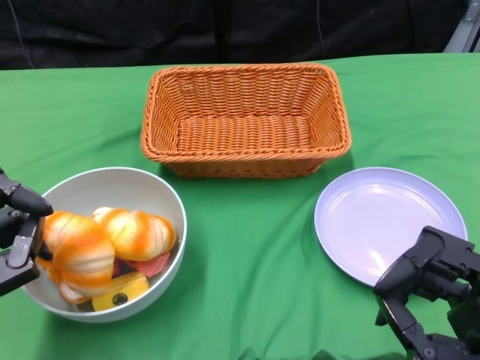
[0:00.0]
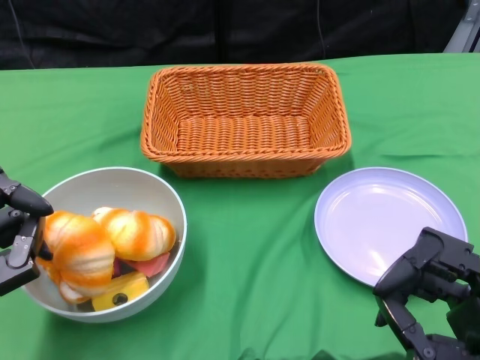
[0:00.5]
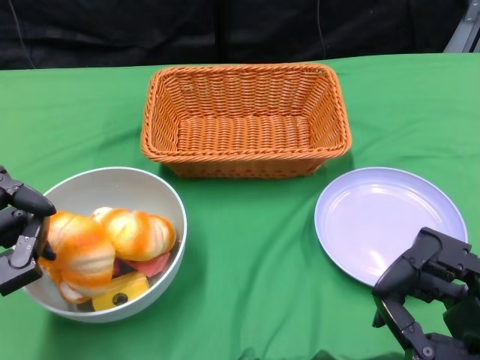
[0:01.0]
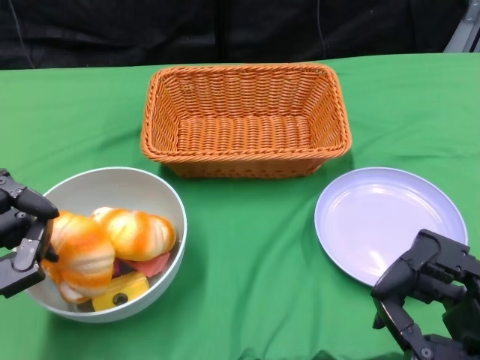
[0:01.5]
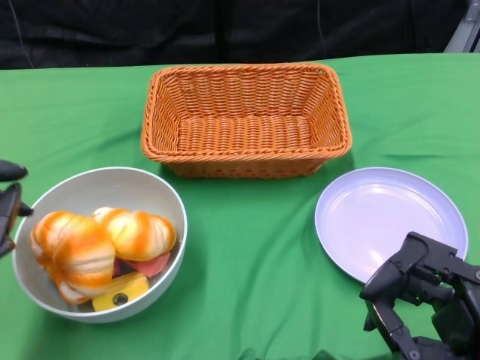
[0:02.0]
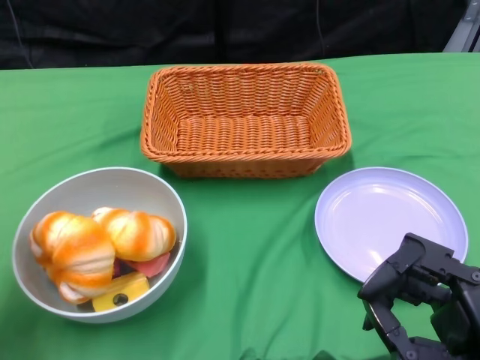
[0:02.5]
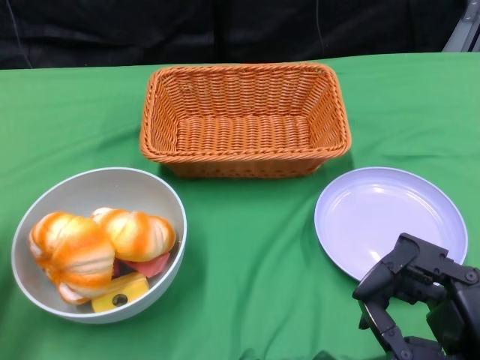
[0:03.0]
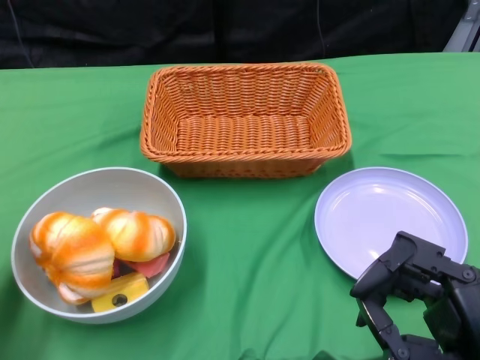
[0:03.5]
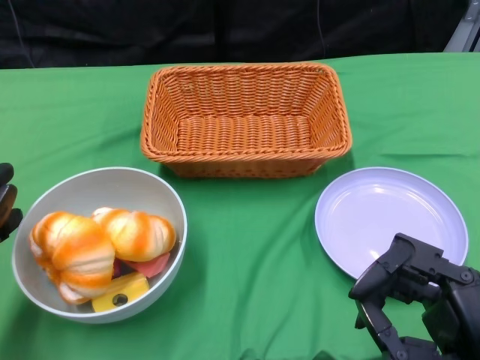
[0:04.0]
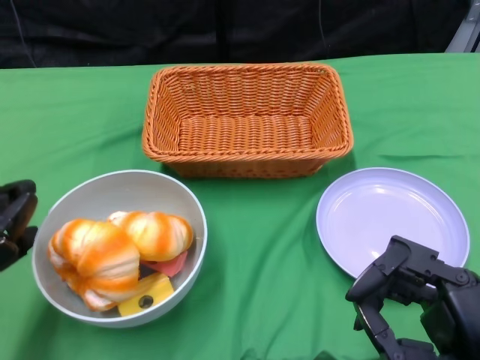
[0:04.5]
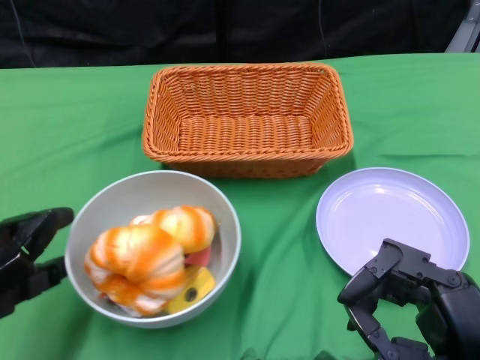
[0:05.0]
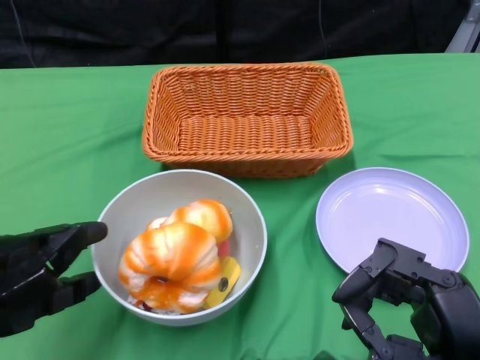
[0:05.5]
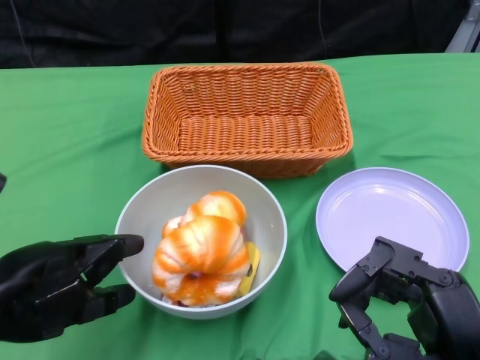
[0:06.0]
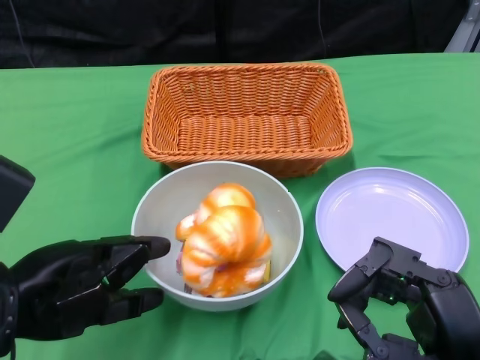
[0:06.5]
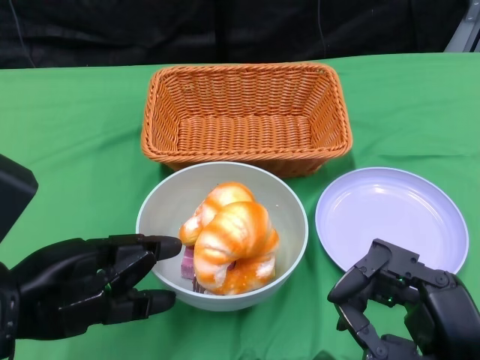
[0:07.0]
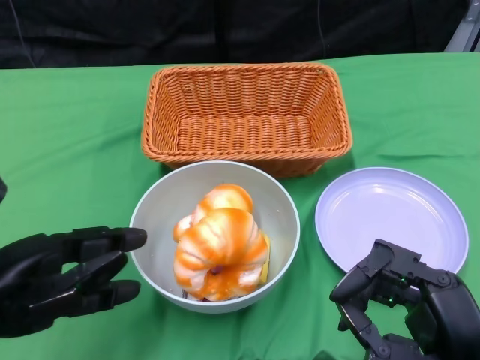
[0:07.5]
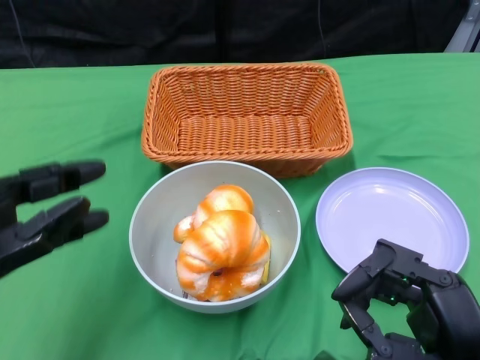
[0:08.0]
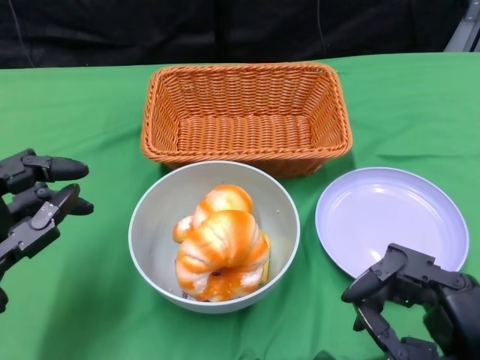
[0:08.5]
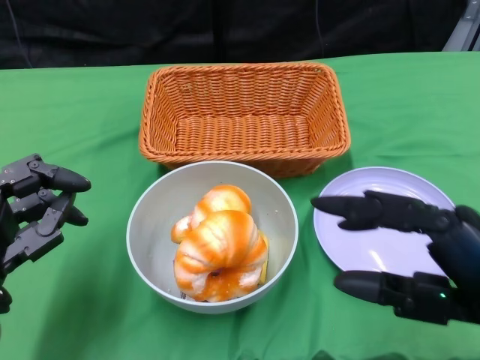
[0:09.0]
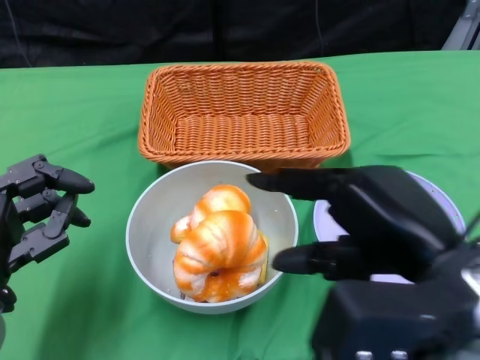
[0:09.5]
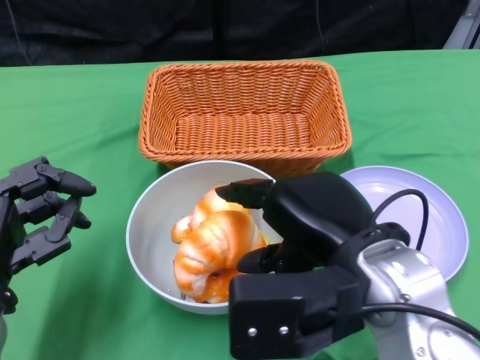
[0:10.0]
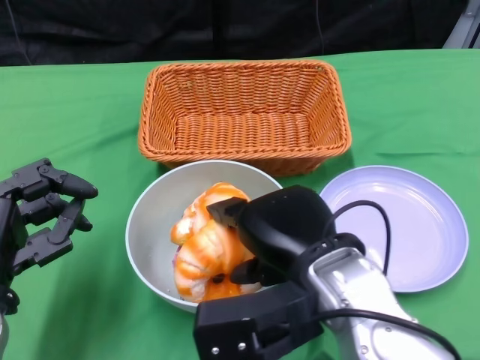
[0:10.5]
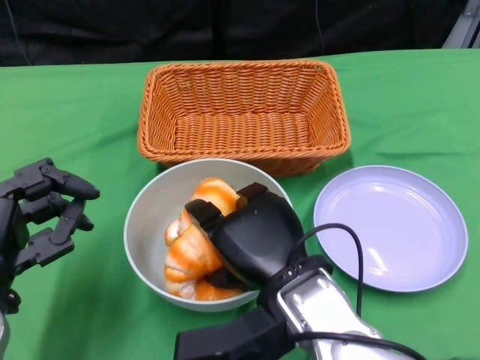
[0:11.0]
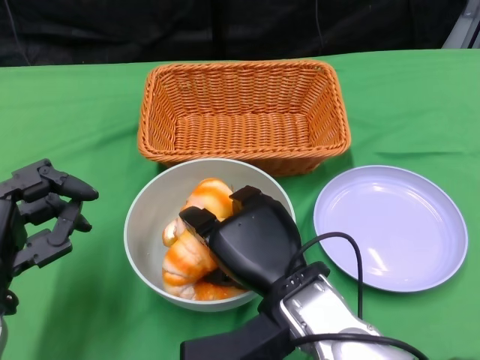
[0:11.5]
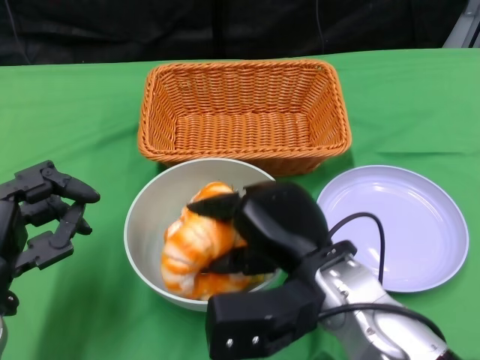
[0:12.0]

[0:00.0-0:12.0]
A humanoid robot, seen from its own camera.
Step, 0:00.0 to 0:07.5: Push the bowl to the center of the table using the left gripper.
0:02.0 to 0:04.0: The left hand ends up about 5 cm from where it was.
0:04.0 to 0:06.0: The left hand heads to the right, covering about 5 cm.
0:08.0 to 0:10.0: The right hand heads to the left, upward and forward, covering about 15 cm. The left hand goes approximately 10 cm downward.
0:10.0 to 0:12.0: The right hand shifts about 5 cm downward.

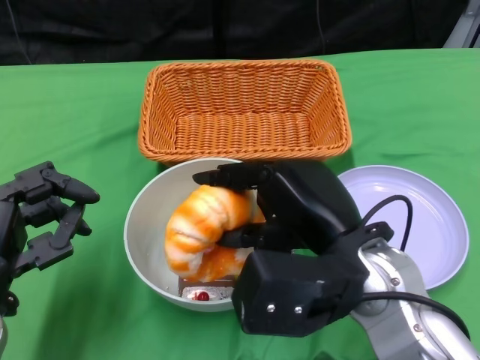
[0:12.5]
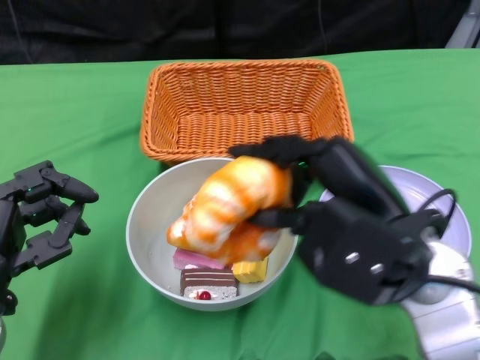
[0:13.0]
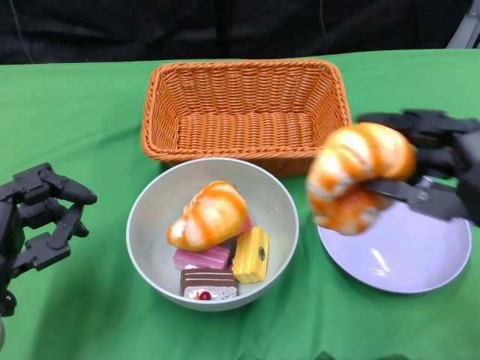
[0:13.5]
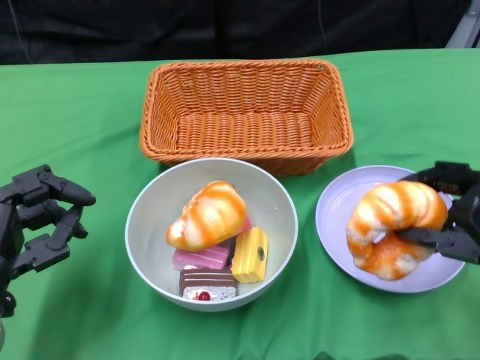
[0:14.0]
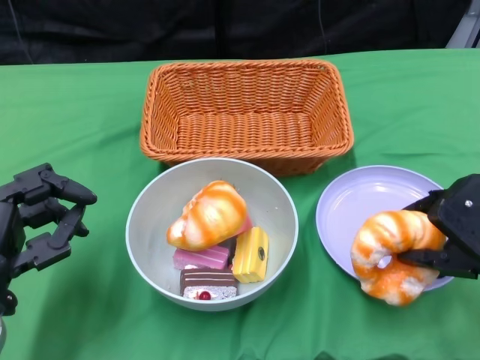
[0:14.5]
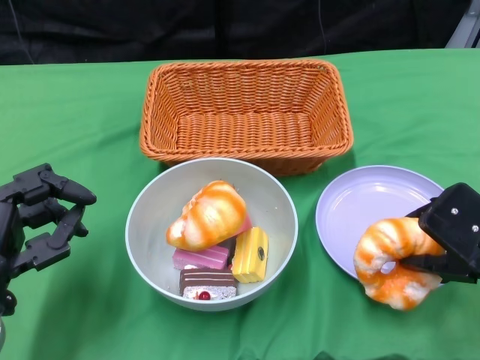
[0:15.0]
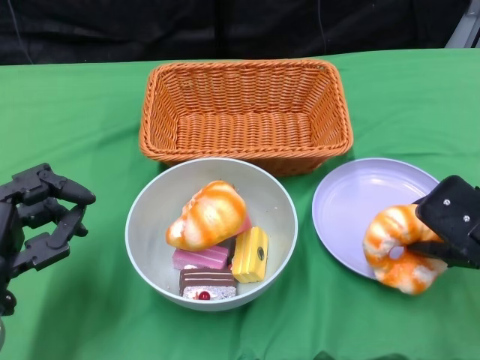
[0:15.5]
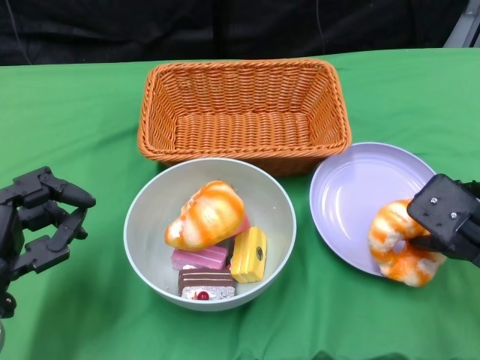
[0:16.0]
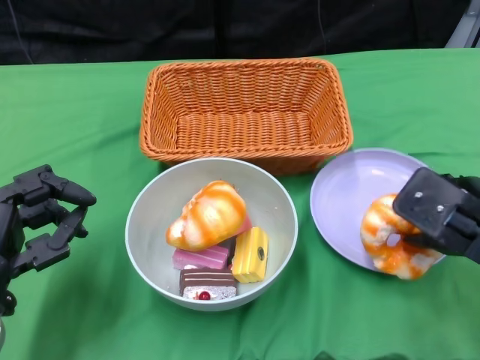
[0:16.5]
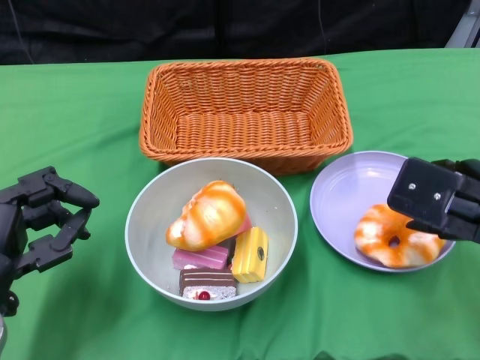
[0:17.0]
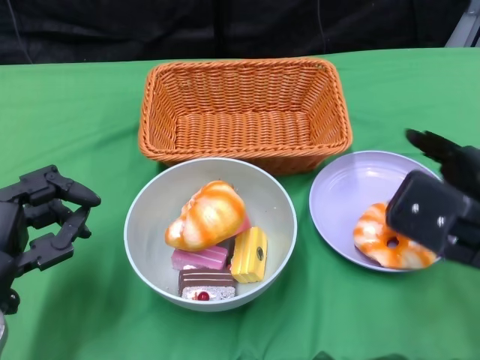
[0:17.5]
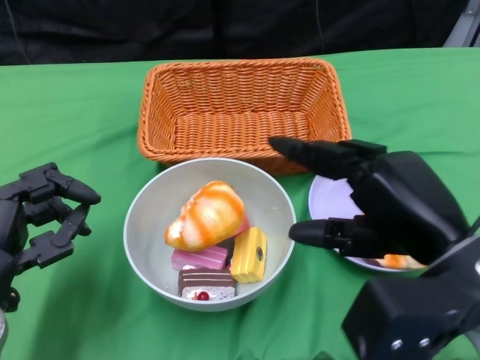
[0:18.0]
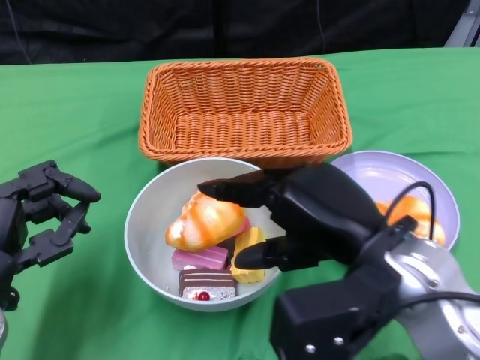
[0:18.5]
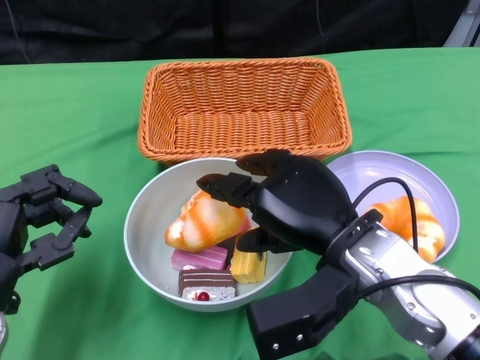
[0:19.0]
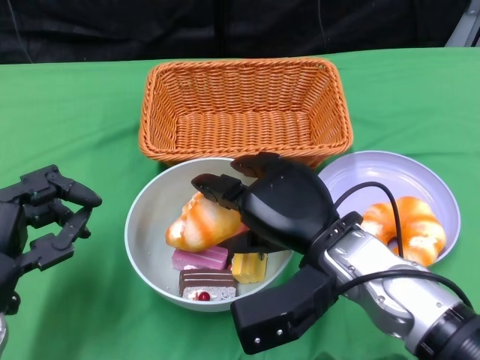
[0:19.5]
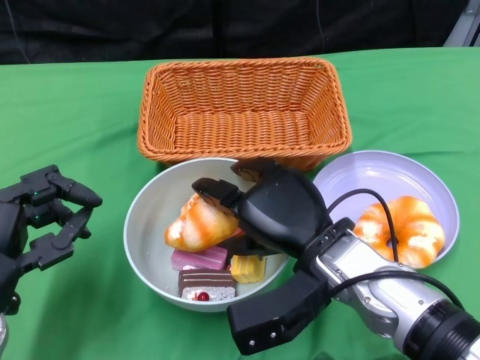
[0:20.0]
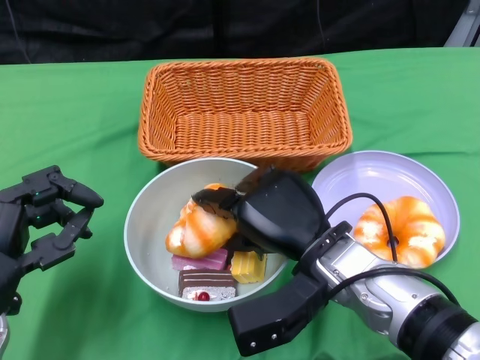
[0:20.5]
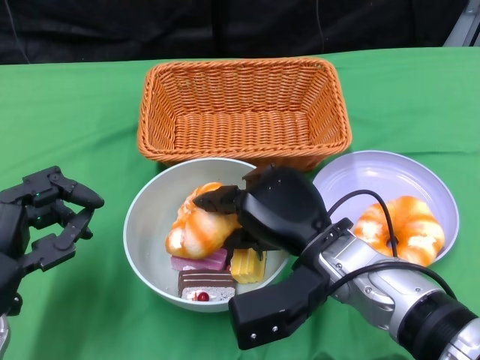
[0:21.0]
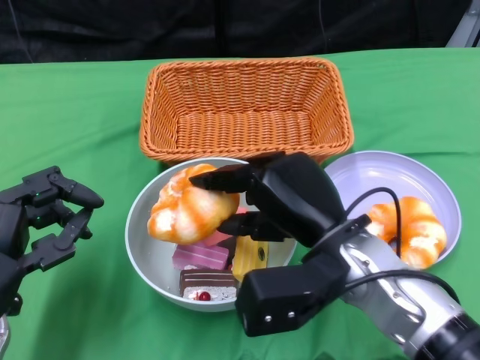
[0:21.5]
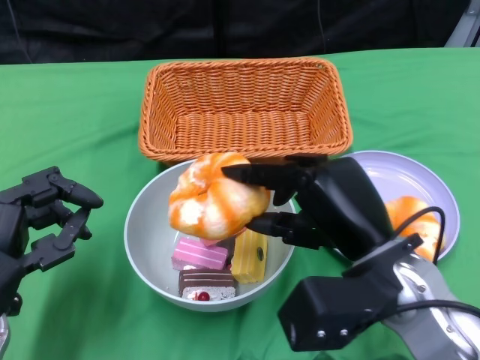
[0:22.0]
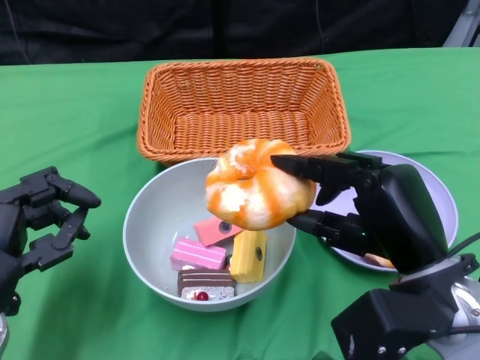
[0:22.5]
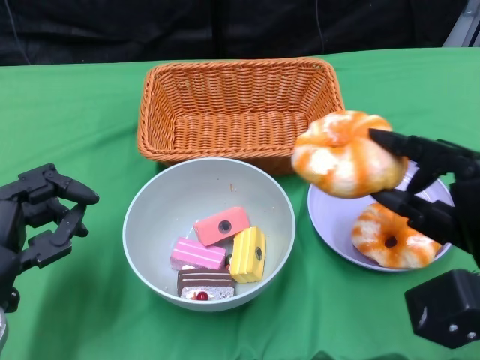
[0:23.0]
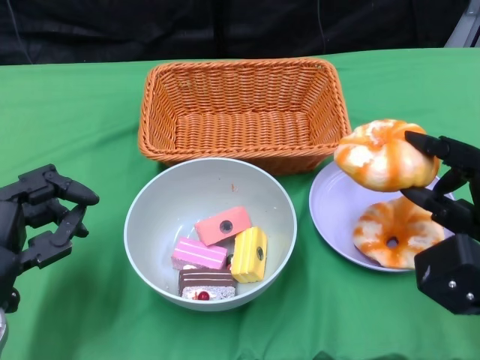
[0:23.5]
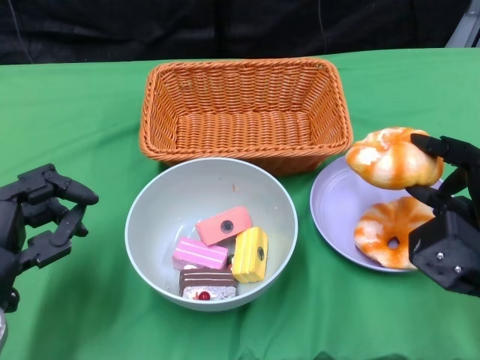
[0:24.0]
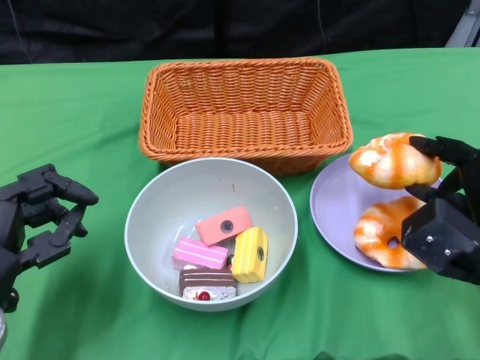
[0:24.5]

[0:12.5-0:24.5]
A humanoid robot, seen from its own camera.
Step, 0:12.5 to 0:17.0: Pick up the bread with the right gripper and place it on the plate.
0:12.5 to 0:14.5: The right hand goes some 15 cm to the right.
0:14.5 to 0:16.5: The hands stay close to where they were, moving slightly.
0:16.5 to 0:18.5: The right hand travels to the left by approximately 10 cm.
0:18.5 to 0:20.5: The right hand is displaced downward and to the left by roughly 10 cm.
0:20.5 to 0:22.5: The right hand is displaced to the right by about 10 cm.
0:22.5 to 0:24.5: The right hand moves to the right, approximately 10 cm.

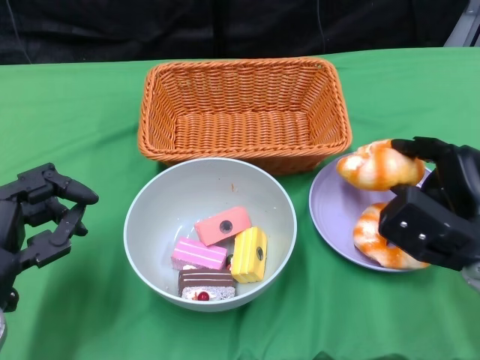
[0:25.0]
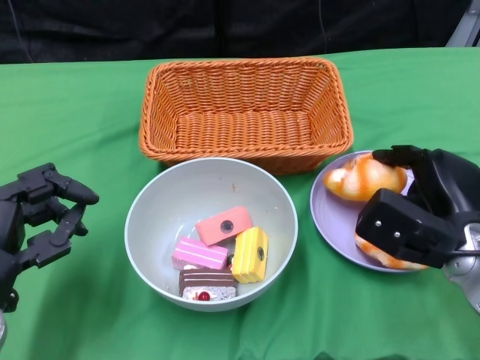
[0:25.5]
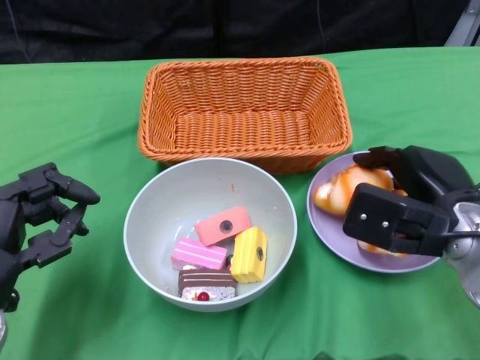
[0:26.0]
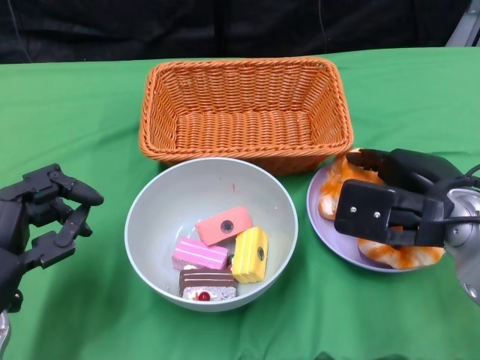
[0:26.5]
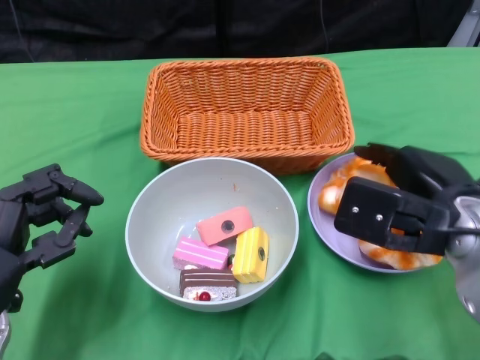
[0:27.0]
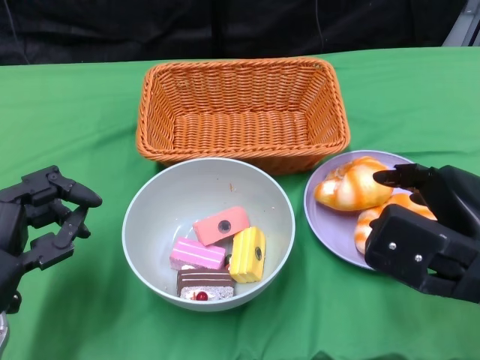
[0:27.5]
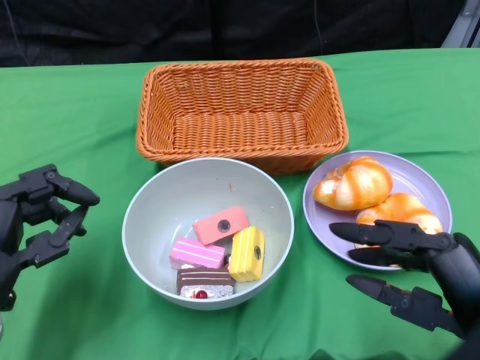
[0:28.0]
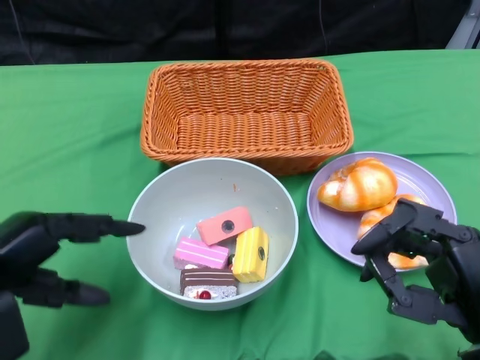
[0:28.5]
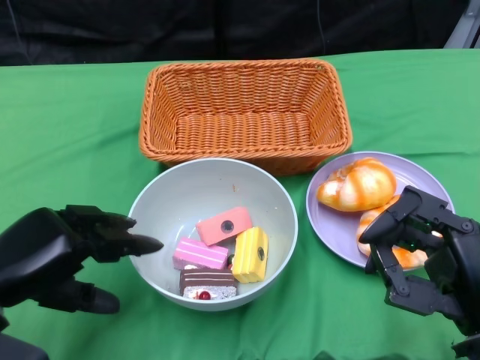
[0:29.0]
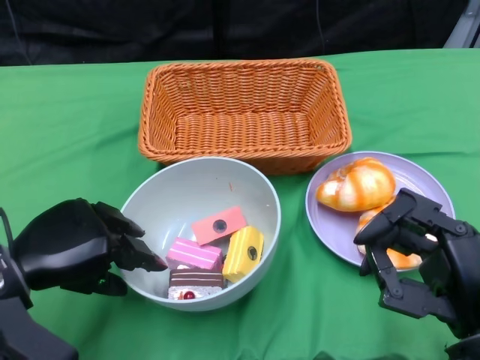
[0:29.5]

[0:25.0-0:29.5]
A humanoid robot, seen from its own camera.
0:25.0 to 0:27.0: The right hand travels upward by about 5 cm.
0:27.0 to 0:29.5: The right hand shifts some 10 cm backward.
